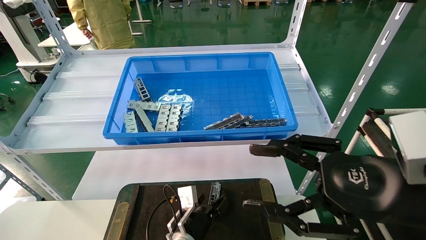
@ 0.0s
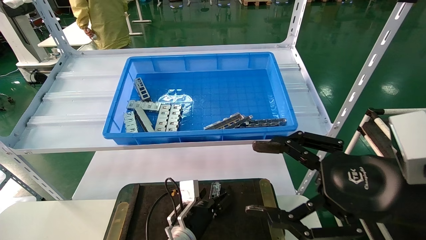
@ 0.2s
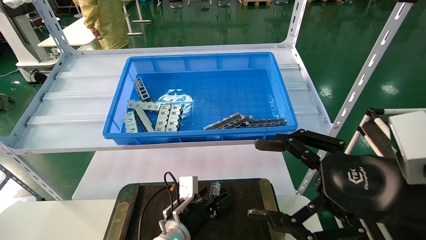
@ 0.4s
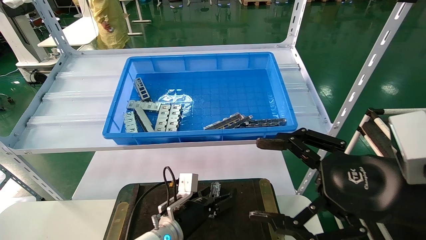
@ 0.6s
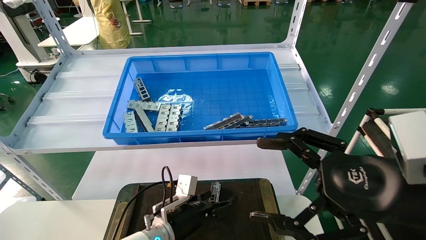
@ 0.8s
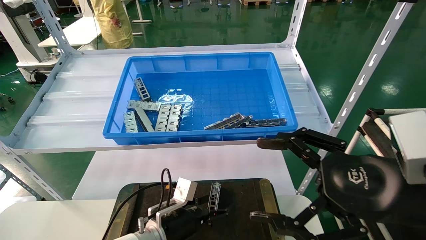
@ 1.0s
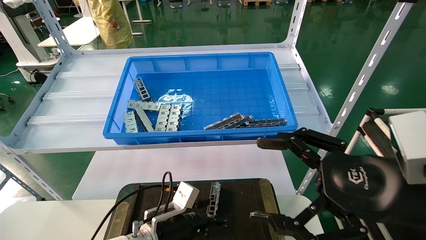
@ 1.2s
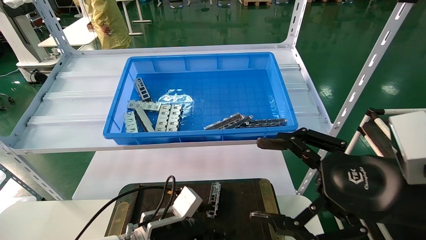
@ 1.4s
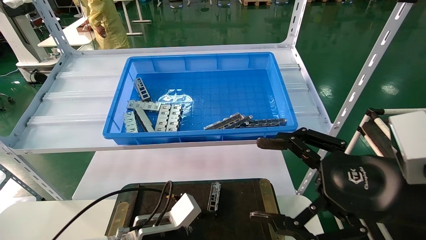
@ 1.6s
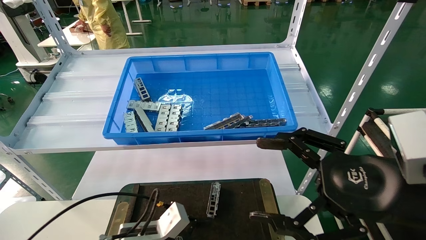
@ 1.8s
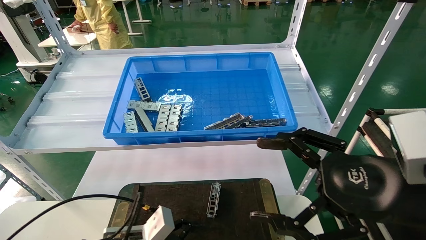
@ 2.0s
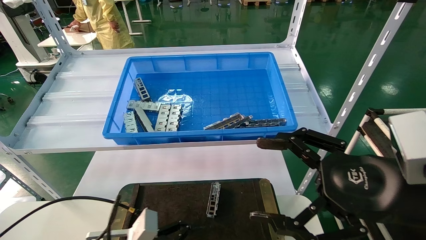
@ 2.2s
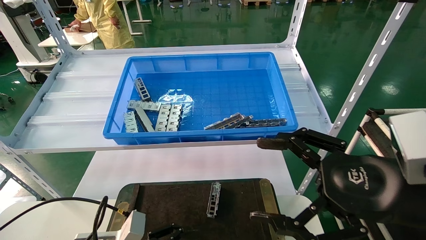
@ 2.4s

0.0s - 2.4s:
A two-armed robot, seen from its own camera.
Task of the whole recording: Grasp the part with one hand and place it on the black container.
0.0s - 1.2s: The right gripper opens up. The left gripper travels upward and to the left by about 10 cm, and opens its fingers.
1.2s - 2.4s: The left gripper is displaced to the left and backward by about 10 cm.
